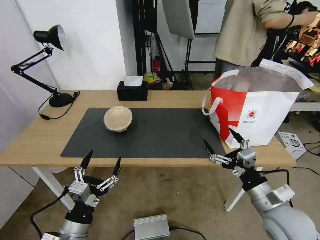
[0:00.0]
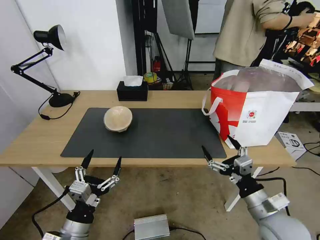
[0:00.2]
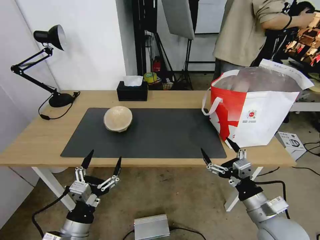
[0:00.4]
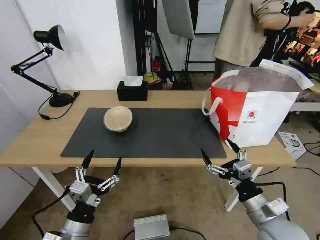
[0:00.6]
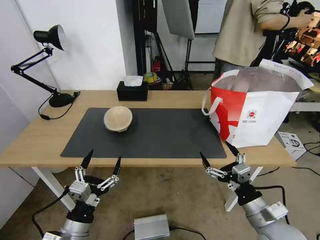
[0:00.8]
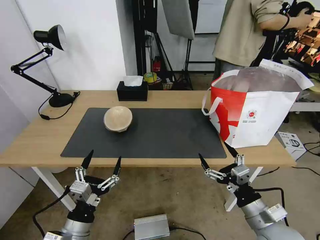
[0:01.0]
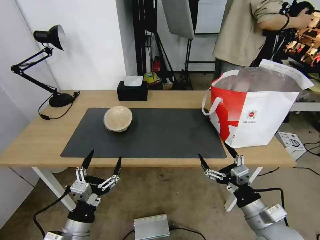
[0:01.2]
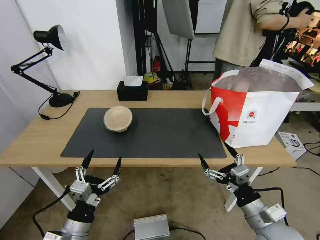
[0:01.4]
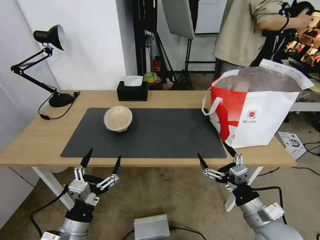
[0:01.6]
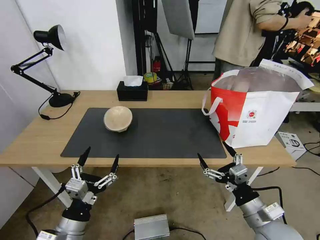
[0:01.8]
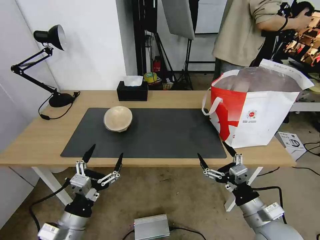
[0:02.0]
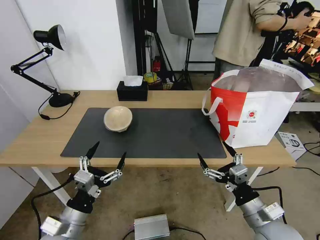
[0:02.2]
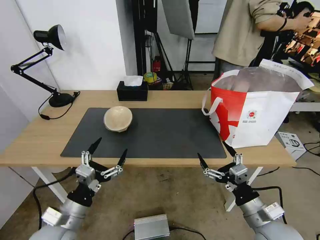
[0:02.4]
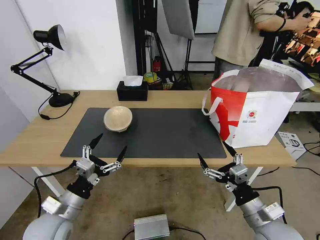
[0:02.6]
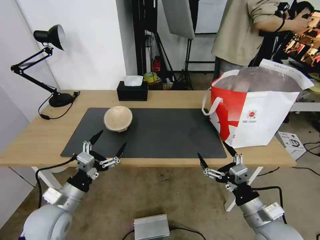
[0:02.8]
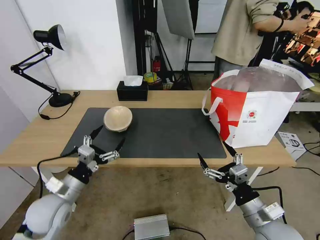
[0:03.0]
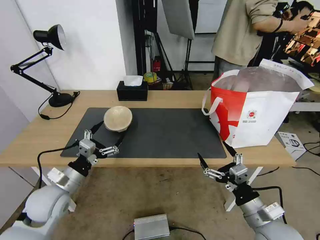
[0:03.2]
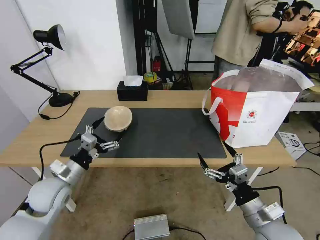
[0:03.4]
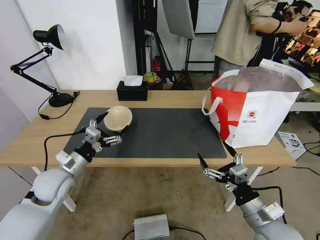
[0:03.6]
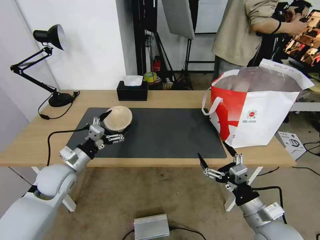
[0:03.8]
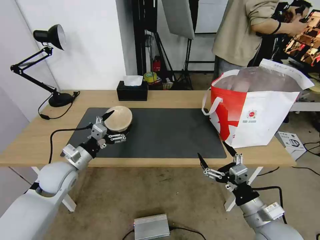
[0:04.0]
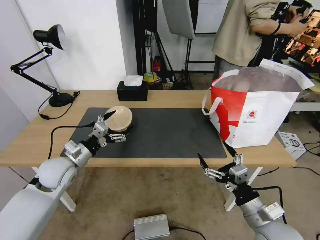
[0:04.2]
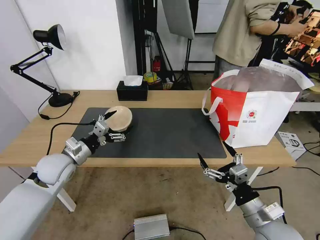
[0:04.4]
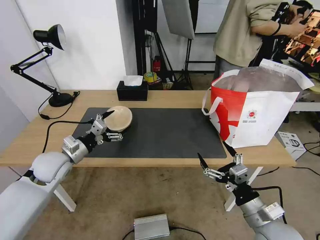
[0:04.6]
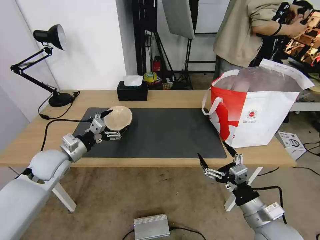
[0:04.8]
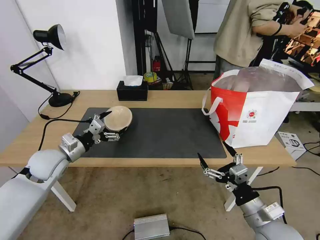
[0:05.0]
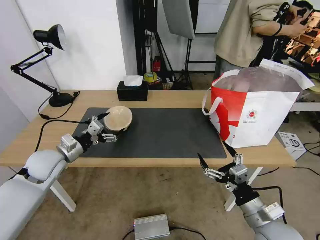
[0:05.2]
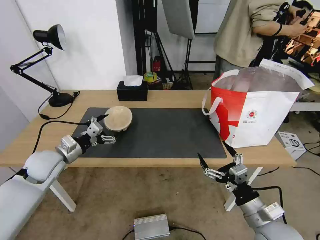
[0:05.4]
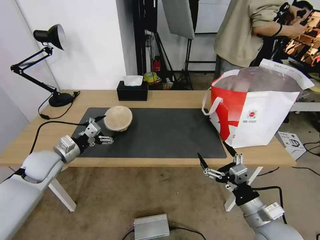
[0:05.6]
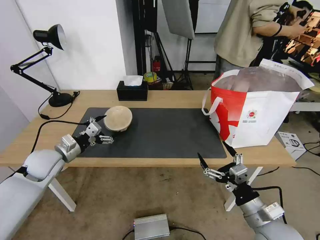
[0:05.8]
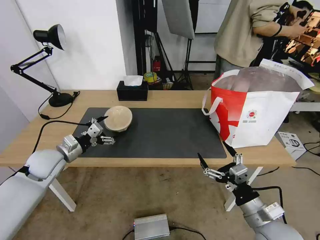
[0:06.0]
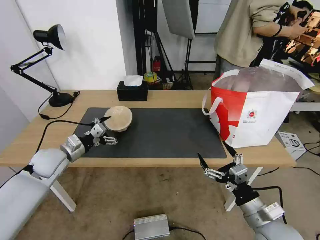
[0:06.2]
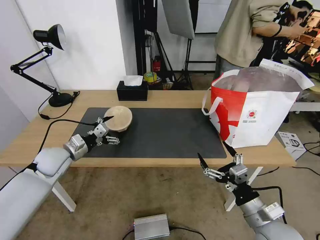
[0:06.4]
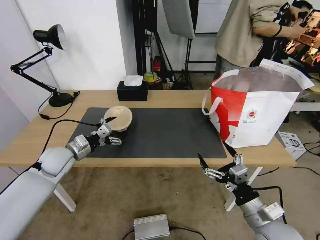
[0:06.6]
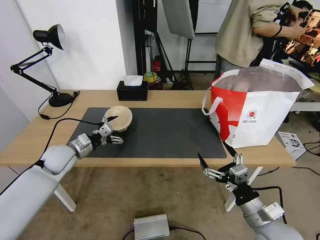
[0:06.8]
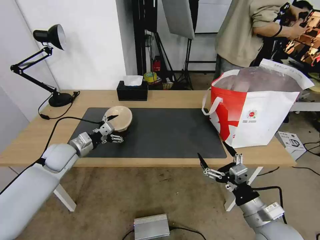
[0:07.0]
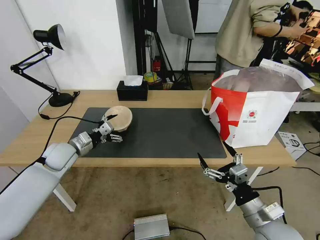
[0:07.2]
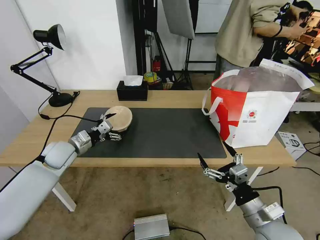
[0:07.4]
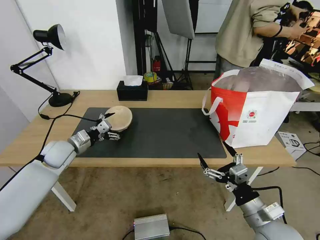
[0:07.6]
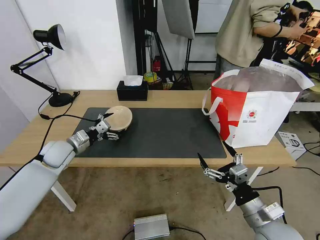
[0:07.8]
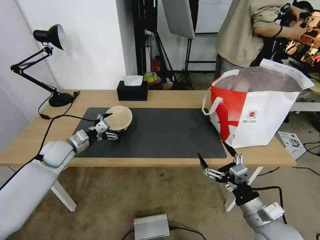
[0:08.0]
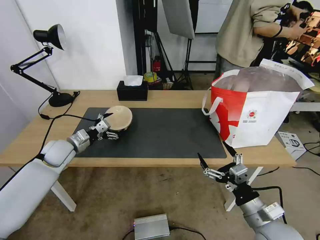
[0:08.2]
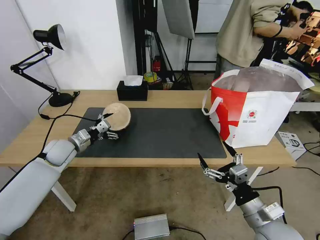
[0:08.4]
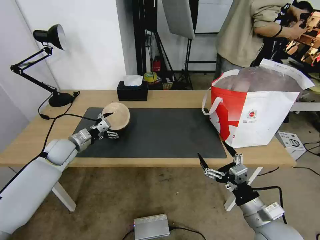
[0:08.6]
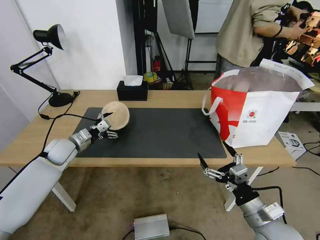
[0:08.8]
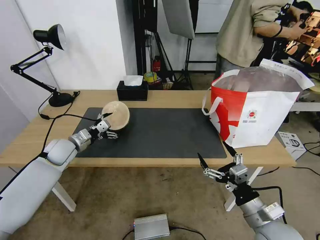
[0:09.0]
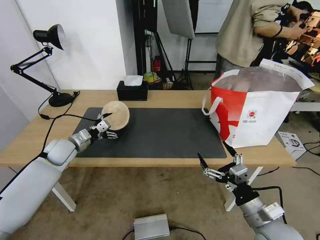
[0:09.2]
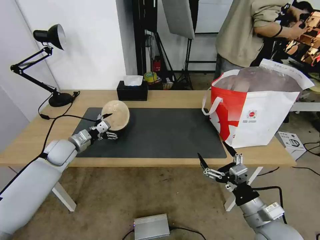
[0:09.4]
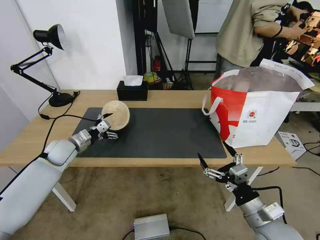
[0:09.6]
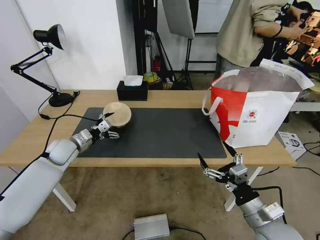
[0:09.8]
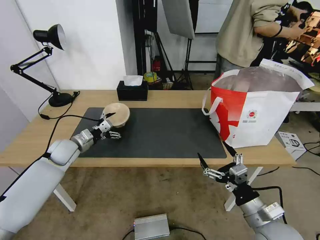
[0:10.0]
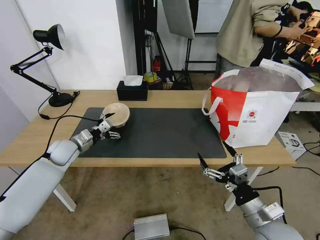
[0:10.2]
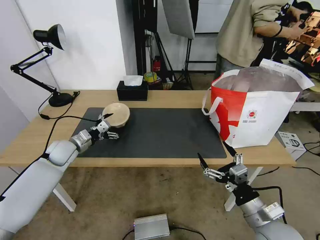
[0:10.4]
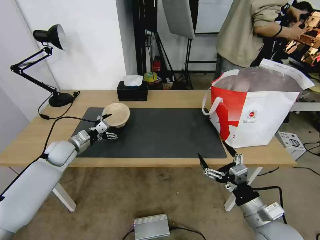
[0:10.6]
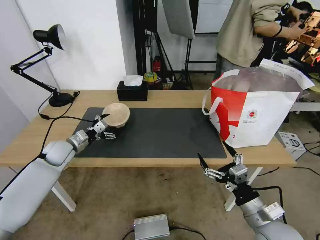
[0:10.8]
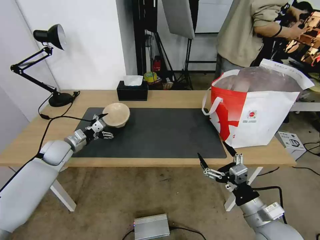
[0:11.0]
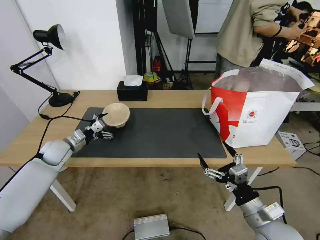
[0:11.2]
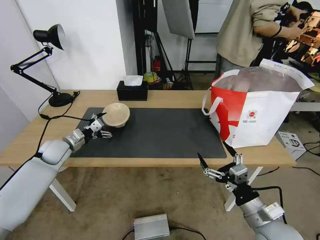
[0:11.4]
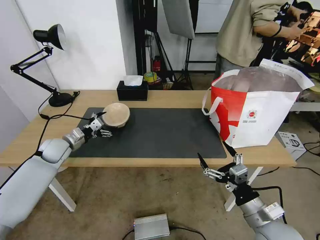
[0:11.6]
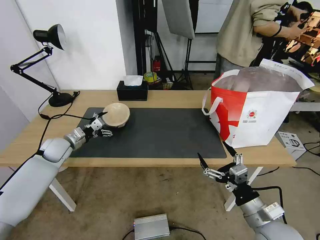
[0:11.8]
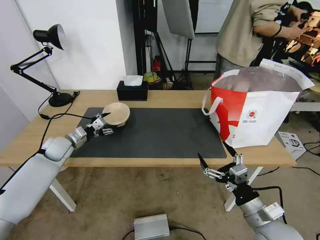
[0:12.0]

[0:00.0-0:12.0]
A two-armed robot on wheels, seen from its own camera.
Task of the whole recording: Pick up the trash from the table and place it into the takeout bag.
0:00.0 to 0:01.6: There are only small adjustments of the grippers.
0:01.6 to 0:03.0: The left gripper travels forward and to the left by about 15 cm.
0:03.0 to 0:04.4: The left gripper moves forward, approximately 10 cm.
0:04.4 to 0:06.0: There are only small adjustments of the grippers.
0:06.0 to 0:07.6: There are only small adjustments of the grippers.
0:07.6 to 0:09.0: The grippers stay close to where they were, moving slightly.
0:09.0 to 0:10.4: Neither gripper changes place.
0:10.4 to 0:12.0: There are only small adjustments of the grippers.

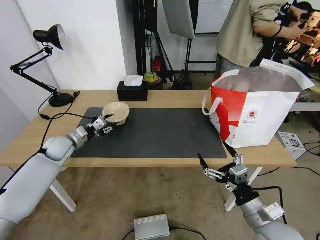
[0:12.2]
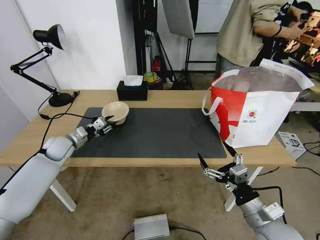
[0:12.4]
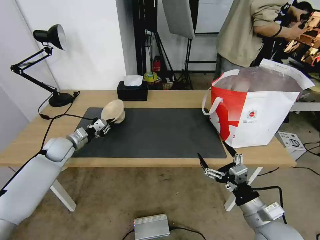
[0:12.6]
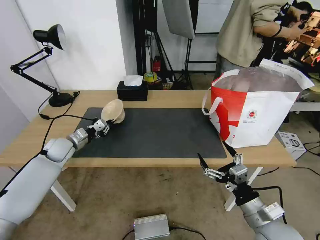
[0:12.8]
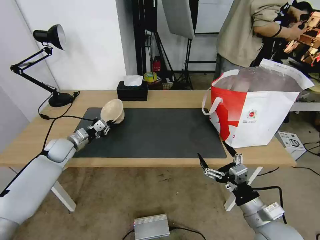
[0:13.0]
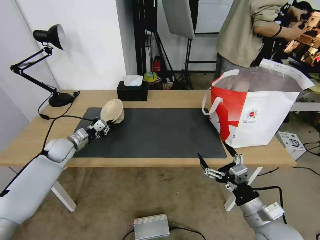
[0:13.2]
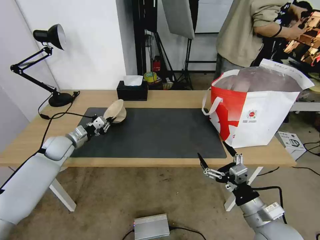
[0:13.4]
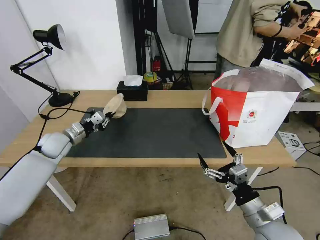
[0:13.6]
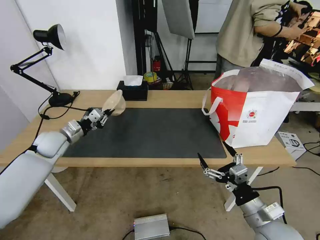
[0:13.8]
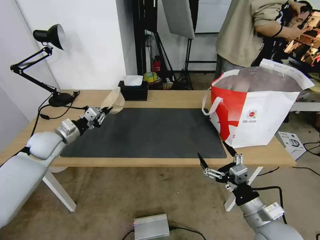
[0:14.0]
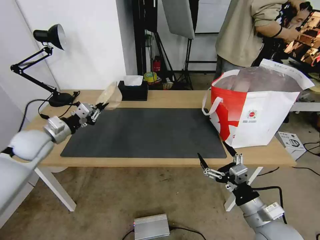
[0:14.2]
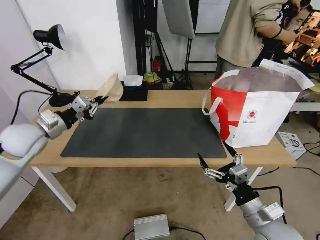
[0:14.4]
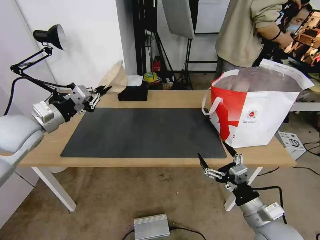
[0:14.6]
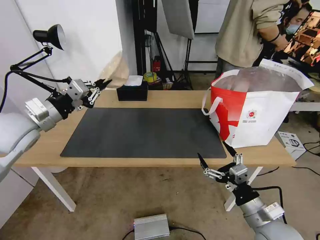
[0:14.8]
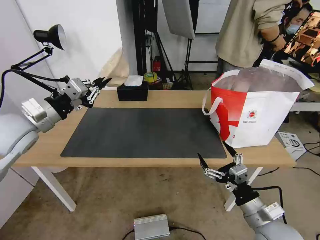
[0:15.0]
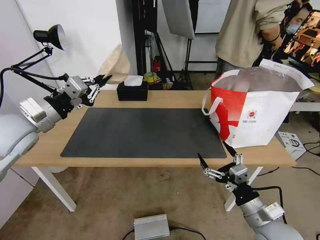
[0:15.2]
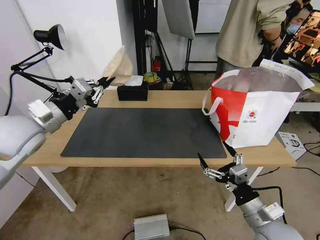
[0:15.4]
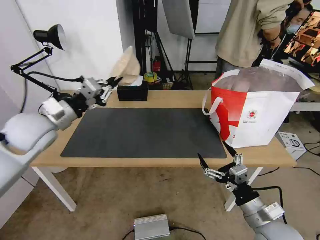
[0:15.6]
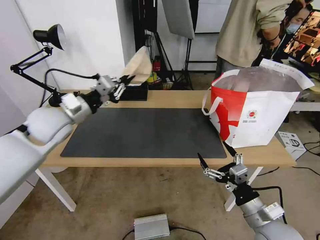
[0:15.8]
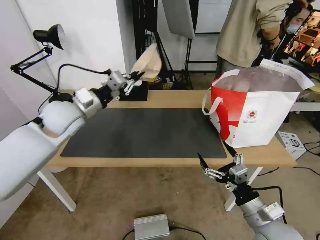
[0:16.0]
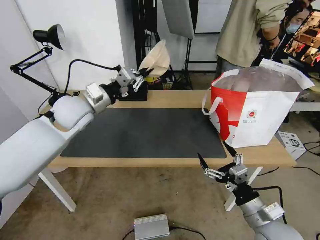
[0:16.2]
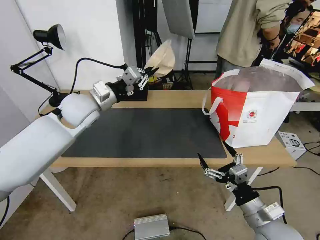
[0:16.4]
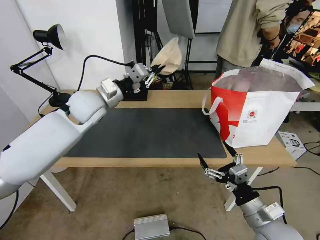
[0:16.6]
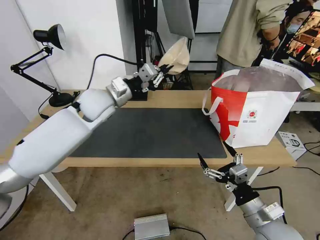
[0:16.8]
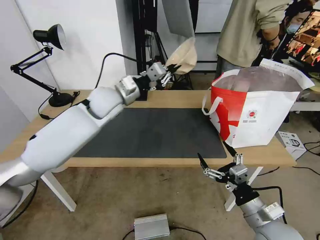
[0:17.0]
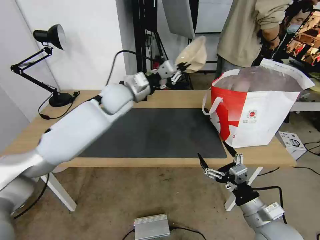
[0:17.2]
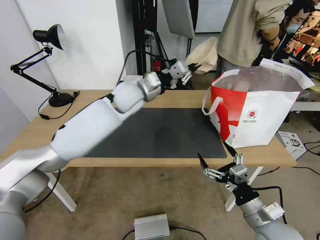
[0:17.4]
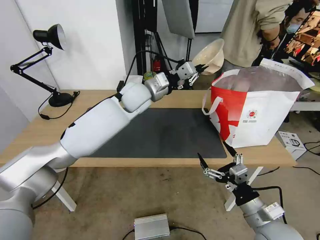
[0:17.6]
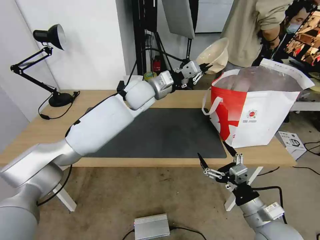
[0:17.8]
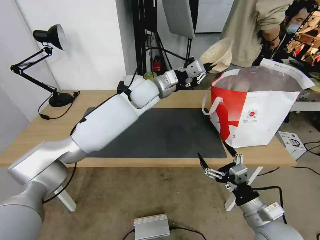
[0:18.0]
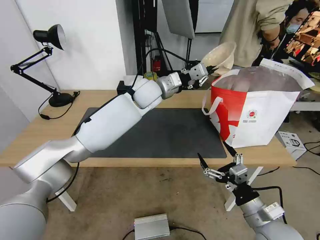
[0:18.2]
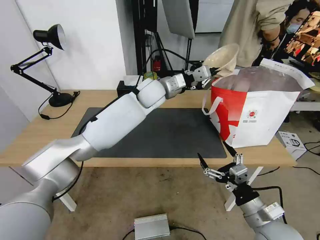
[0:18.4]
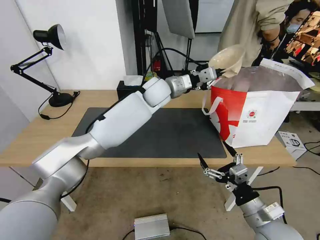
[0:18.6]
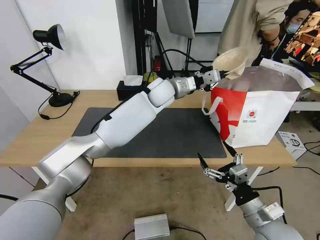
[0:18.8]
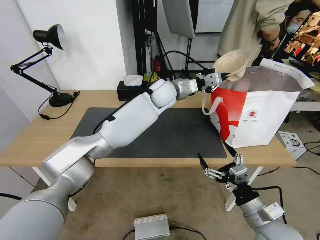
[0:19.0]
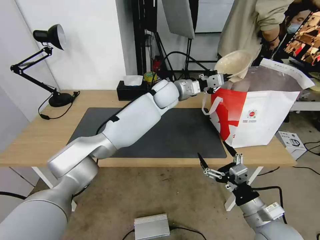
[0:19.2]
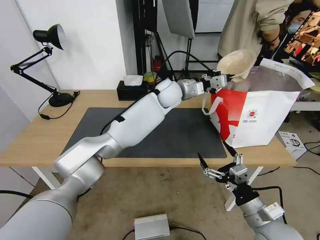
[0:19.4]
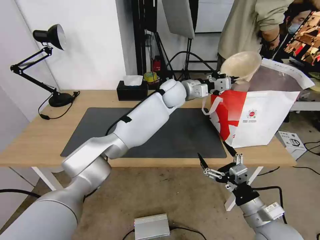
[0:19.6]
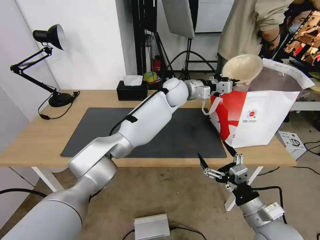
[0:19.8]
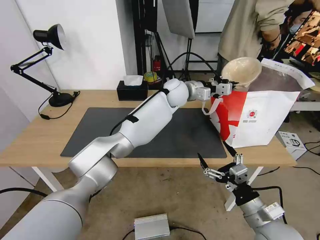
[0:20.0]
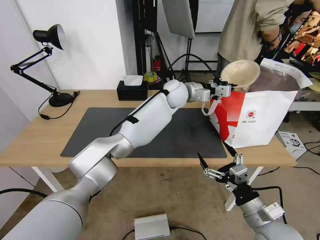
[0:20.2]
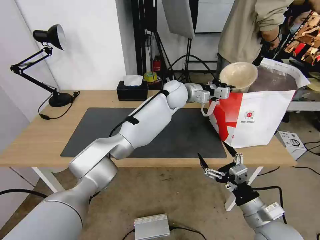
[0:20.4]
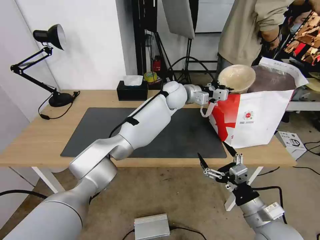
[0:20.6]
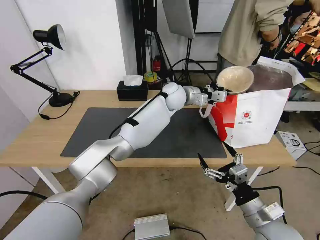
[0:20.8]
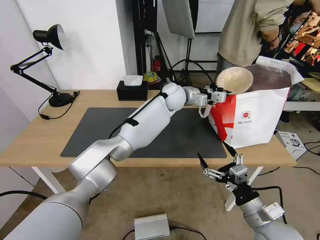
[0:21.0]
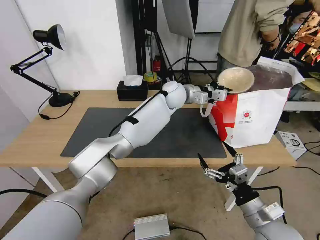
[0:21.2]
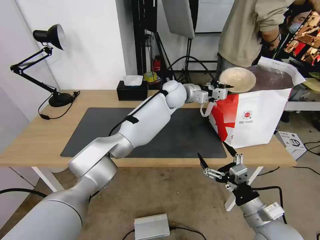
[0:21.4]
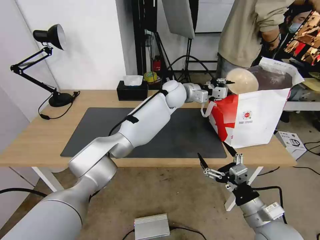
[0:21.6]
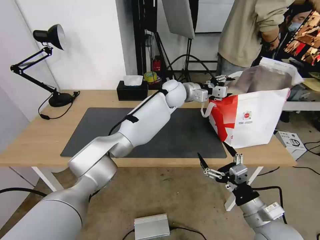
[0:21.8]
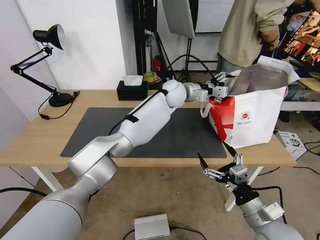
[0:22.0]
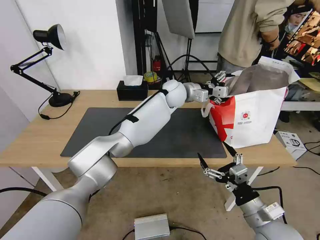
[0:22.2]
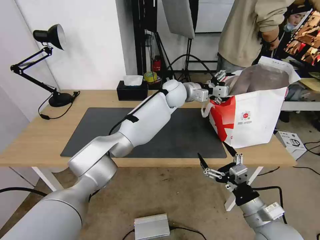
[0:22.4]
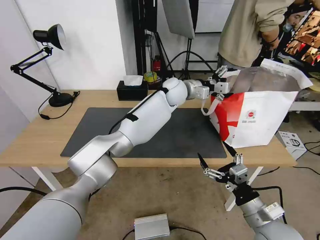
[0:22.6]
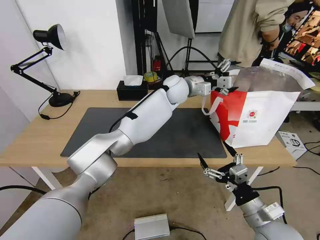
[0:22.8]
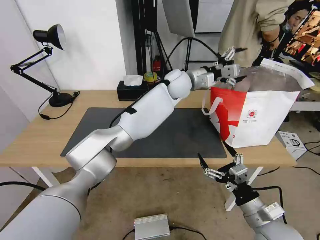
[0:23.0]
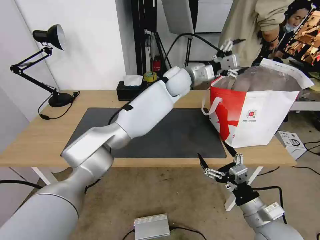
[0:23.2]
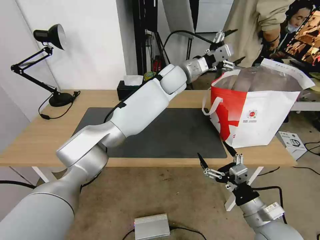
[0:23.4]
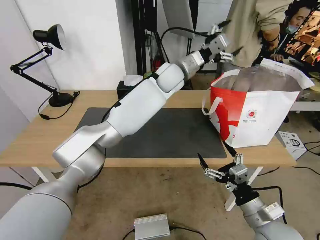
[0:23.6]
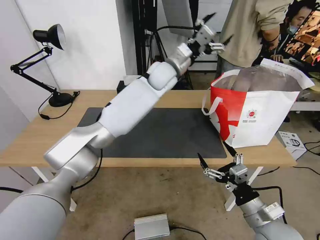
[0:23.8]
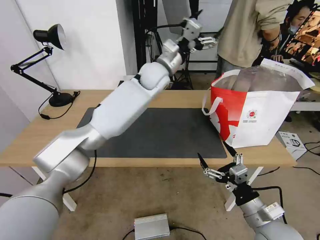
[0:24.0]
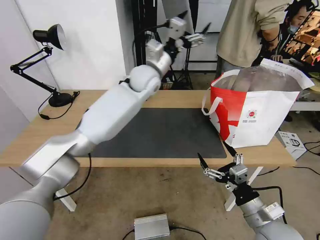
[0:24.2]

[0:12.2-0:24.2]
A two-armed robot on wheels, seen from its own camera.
Task of the whole recording: Pick up the trash from the table and place it into the takeout bag.
0:12.2 to 0:13.8: The left gripper shifts by some 5 cm, and closes.
0:13.8 to 0:15.2: The left gripper travels upward and backward by roughly 20 cm.
0:15.2 to 0:16.6: The left gripper shifts roughly 20 cm to the right and forward.
0:16.6 to 0:18.2: The left gripper is displaced to the right and forward by roughly 20 cm.
0:18.2 to 0:19.8: The left gripper shifts about 10 cm to the right.
0:19.8 to 0:21.2: The grippers make only small movements.
0:21.2 to 0:22.6: The left gripper opens up.
0:22.6 to 0:24.2: The left gripper moves to the left and upward, some 10 cm.
